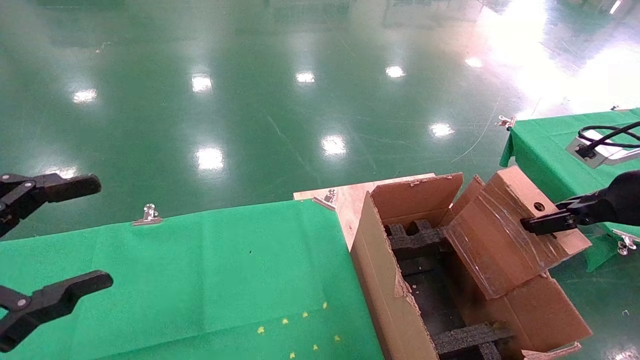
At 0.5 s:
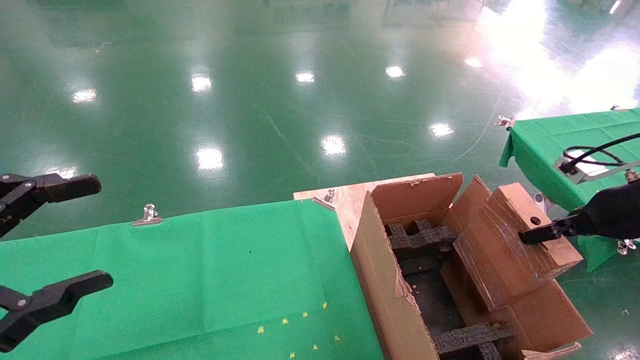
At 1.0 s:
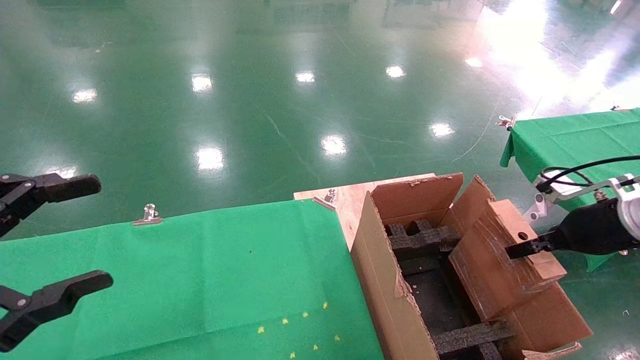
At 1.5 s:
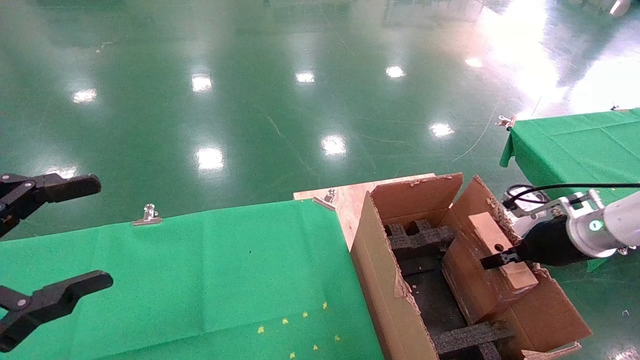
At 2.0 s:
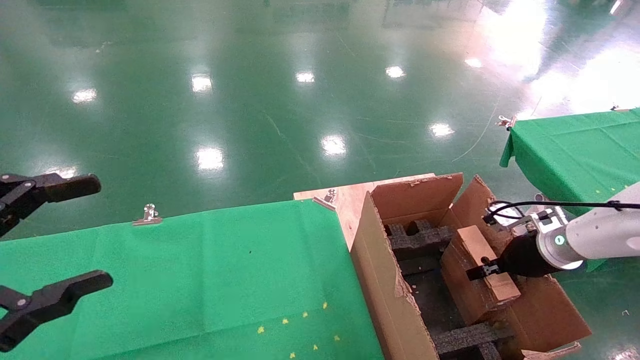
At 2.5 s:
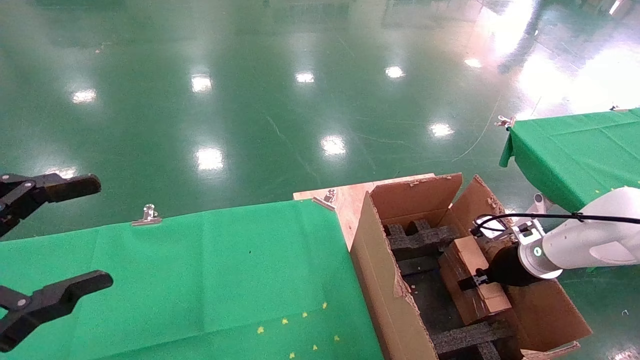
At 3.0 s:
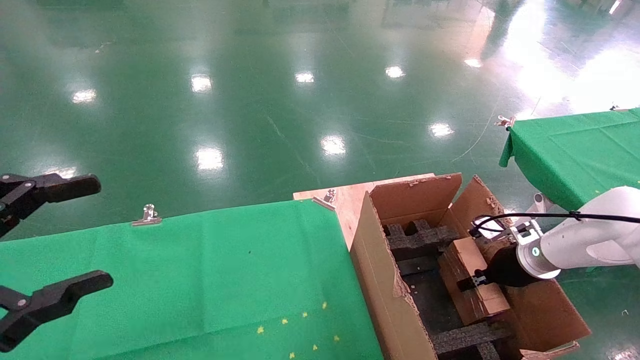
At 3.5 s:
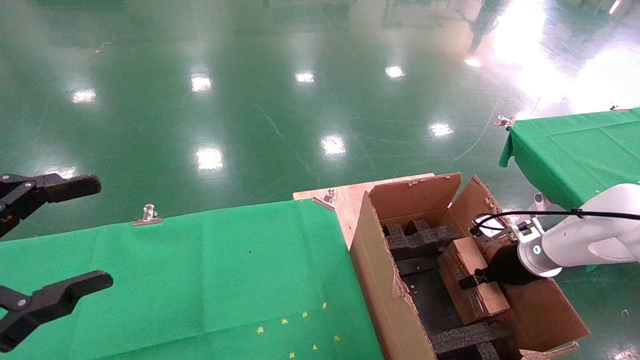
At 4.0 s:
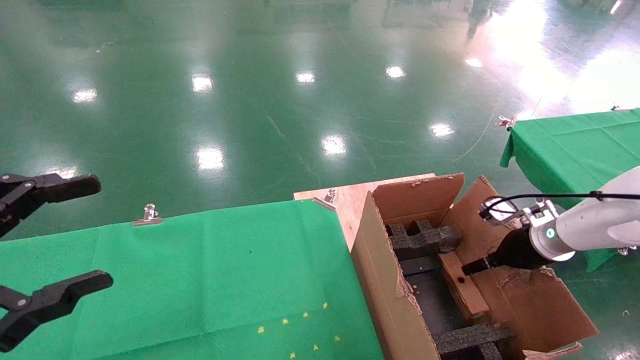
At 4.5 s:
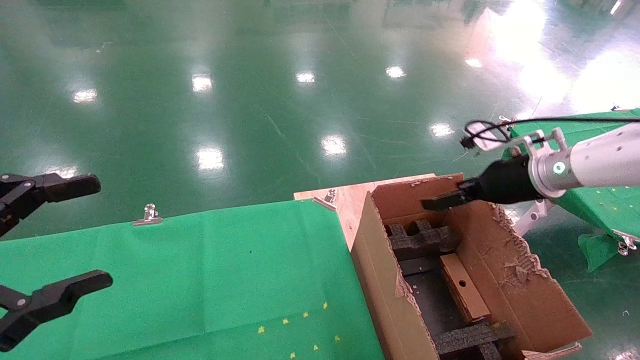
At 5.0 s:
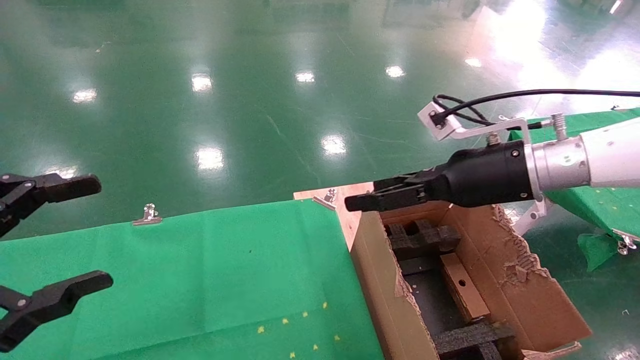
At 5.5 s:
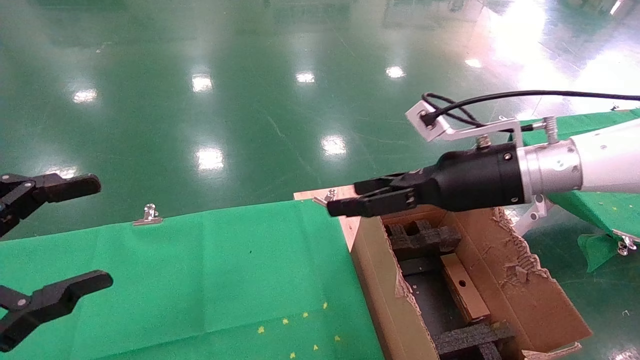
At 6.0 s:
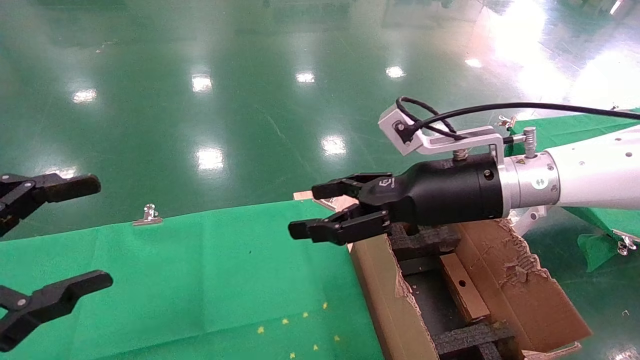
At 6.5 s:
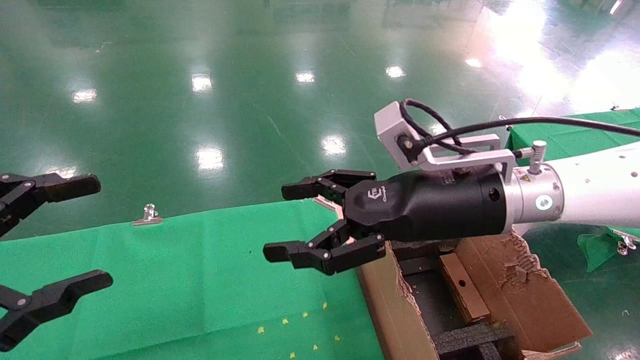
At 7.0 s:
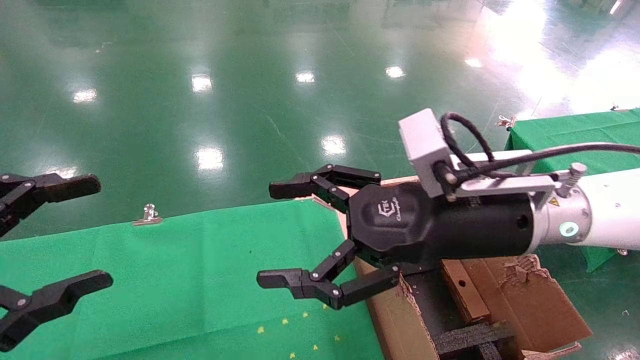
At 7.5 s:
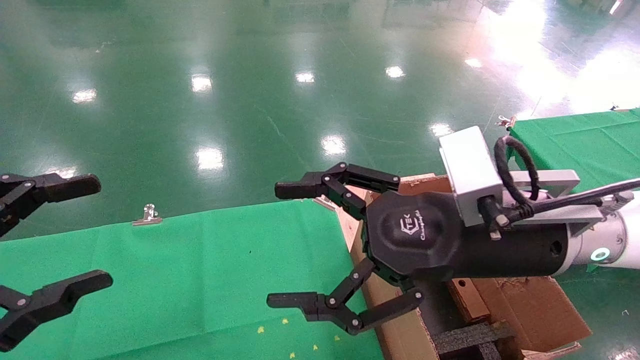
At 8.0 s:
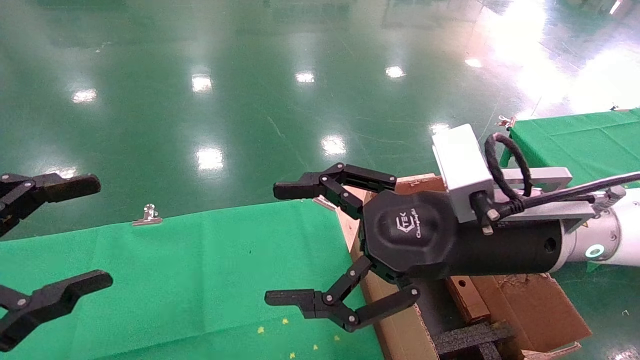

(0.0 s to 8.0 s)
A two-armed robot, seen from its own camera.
Task of the whole recording: using a robotic arm to pick up a cardboard box and palace it the carton.
Step, 0.0 s - 5.0 s: Place the mouse and the power cord paper box into the container.
0.0 s - 2.0 s: The right gripper moves downward and forward, approximately 20 cm.
2.0 s - 4.0 s: The right gripper opens up.
4.0 s - 6.0 s: The right gripper is displaced to the left and upward by roughly 25 cm.
6.0 s - 8.0 s: The right gripper moves backward, some 10 cm.
